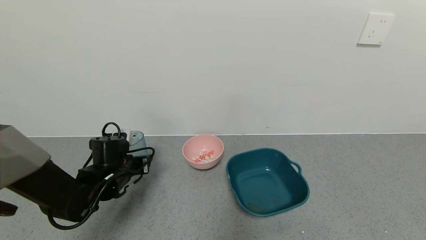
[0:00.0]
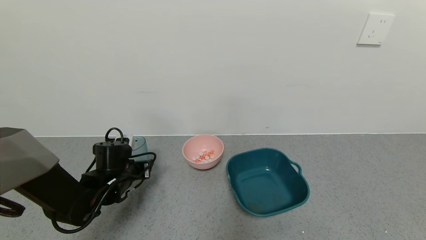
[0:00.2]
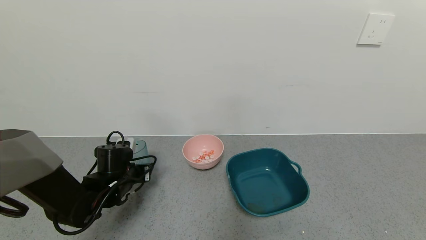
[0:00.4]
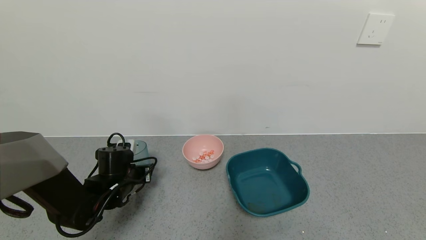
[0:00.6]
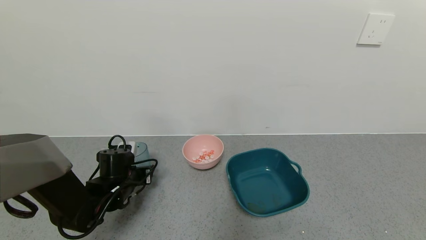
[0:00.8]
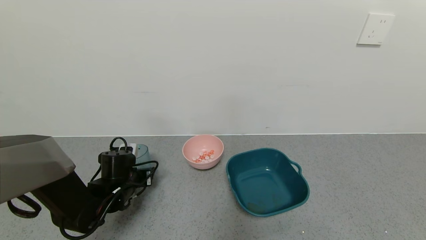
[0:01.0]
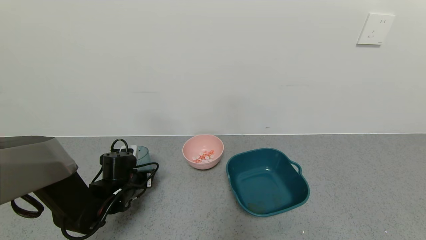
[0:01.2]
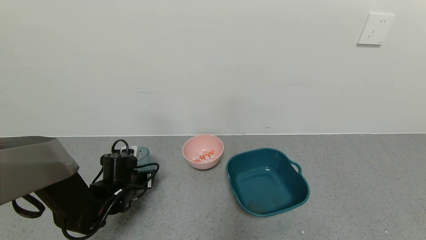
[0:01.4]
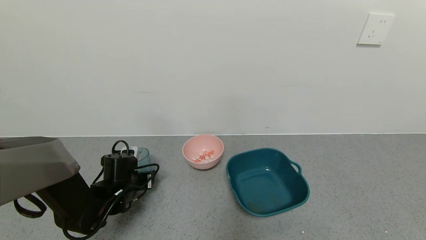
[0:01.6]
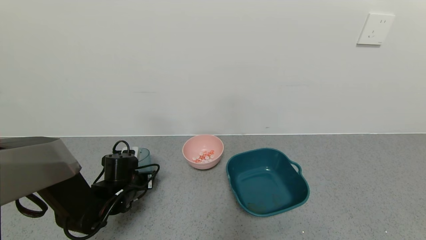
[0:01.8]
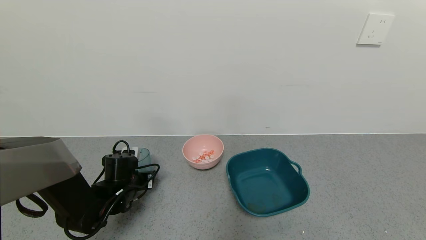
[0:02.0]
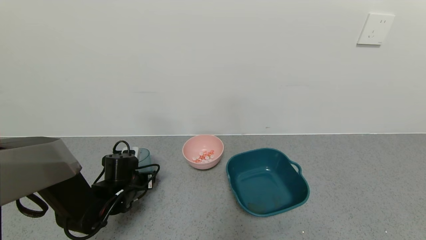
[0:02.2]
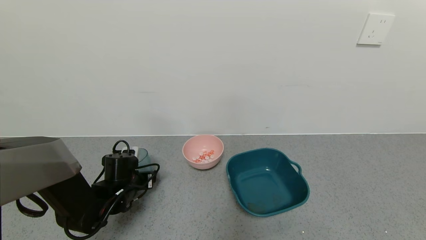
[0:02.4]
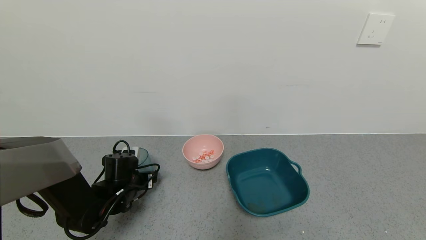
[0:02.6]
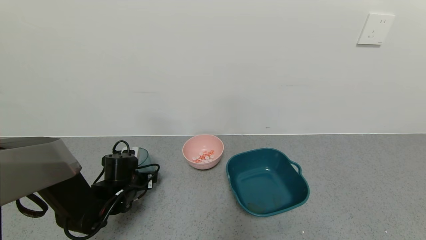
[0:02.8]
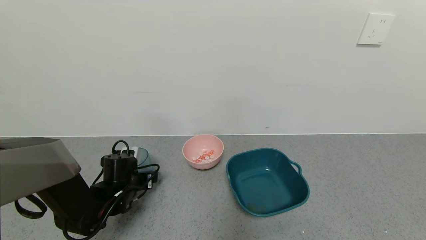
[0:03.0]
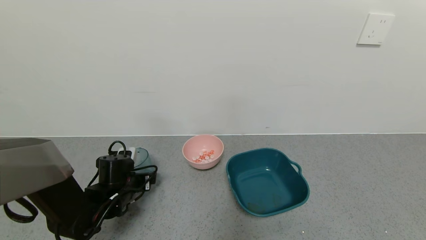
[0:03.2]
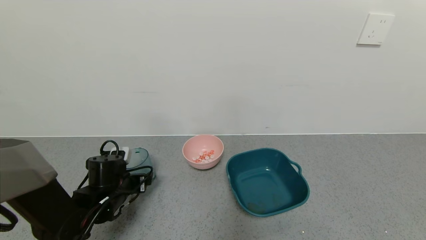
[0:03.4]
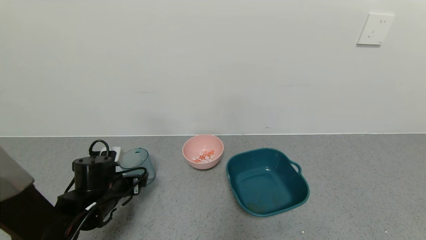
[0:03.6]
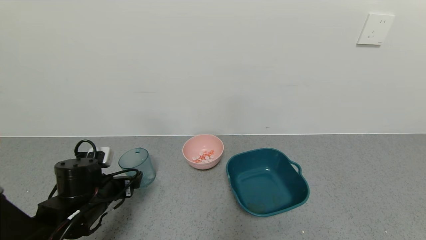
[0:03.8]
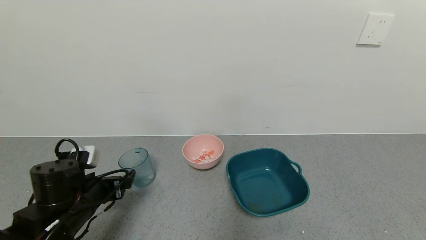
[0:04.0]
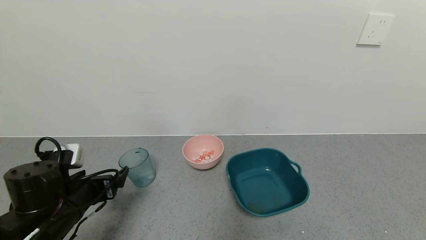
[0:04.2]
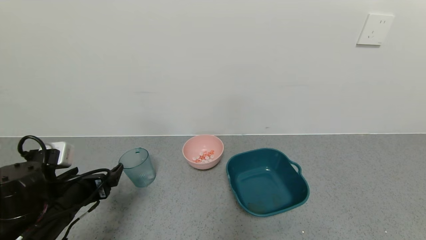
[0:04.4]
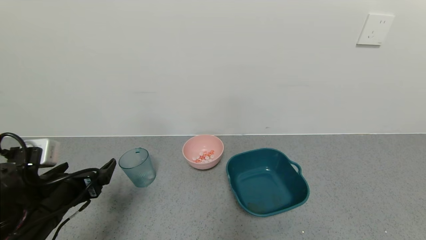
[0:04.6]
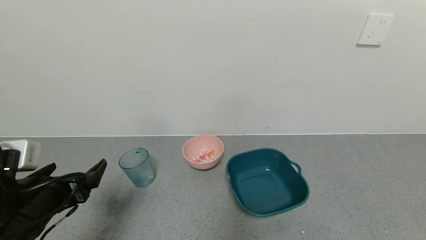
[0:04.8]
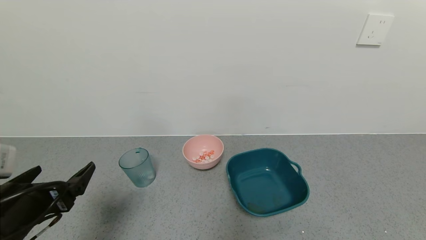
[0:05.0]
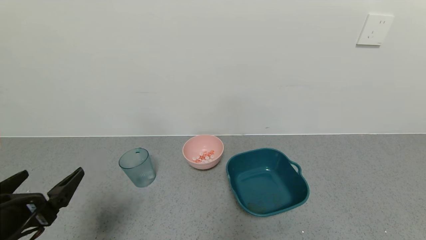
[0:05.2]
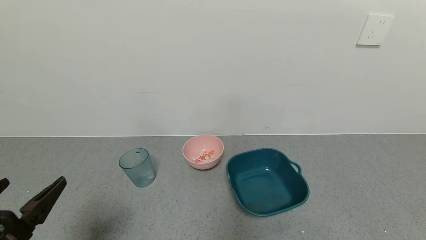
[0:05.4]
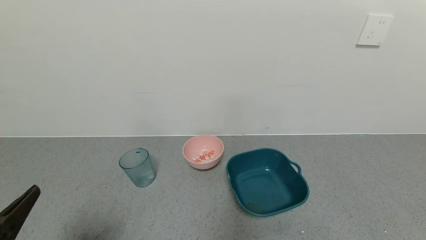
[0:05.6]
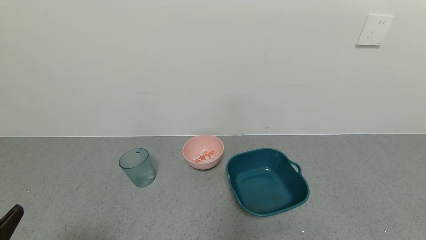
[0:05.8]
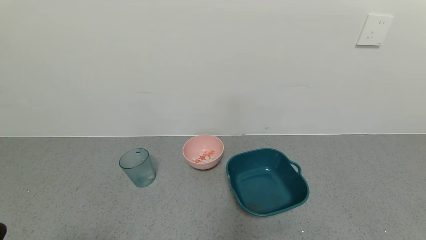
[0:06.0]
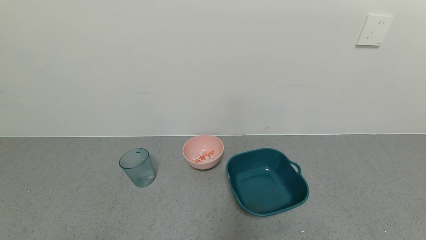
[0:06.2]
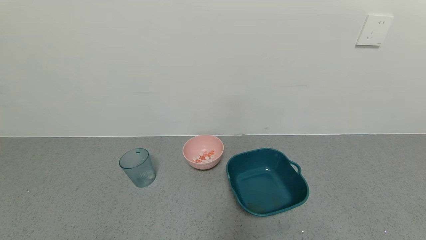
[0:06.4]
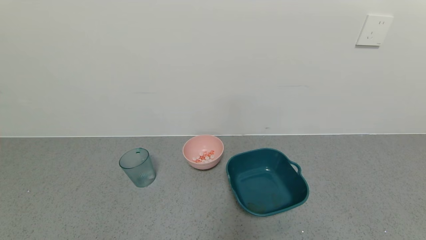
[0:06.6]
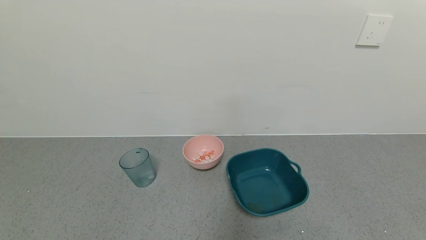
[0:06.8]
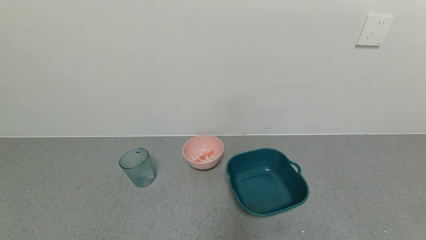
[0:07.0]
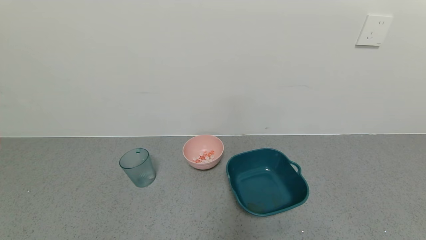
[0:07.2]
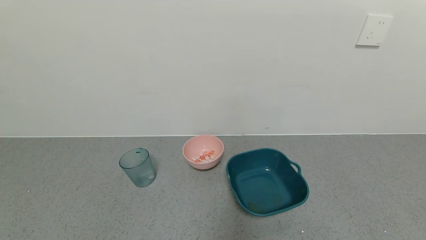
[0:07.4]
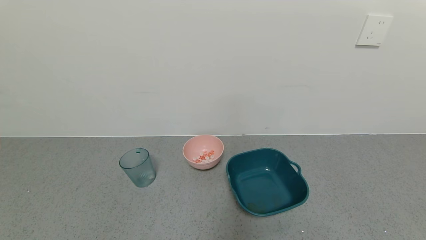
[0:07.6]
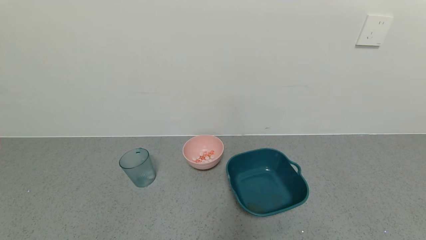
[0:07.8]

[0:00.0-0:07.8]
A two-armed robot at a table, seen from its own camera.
Task of the whole recording: use a gripper to pick up the cup and pour the solid into a bowl or tray.
Step, 0:00.0 to 0:03.4: Place the glass cup with the left gripper.
0:00.0 to 0:01.6: There are only small adjustments of the grippers.
0:01.6 to 0:03.2: The left gripper opens up.
0:03.2 to 0:04.6: The left gripper moves backward and upward, roughly 15 cm.
0:04.6 to 0:06.2: The left gripper goes about 20 cm backward.

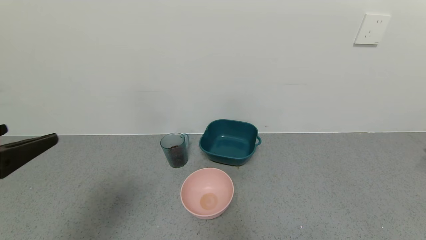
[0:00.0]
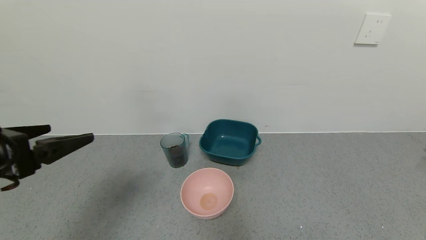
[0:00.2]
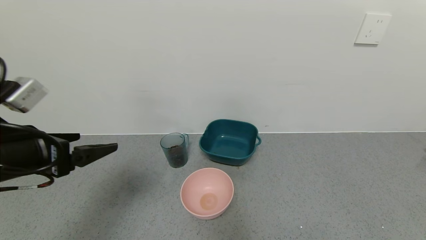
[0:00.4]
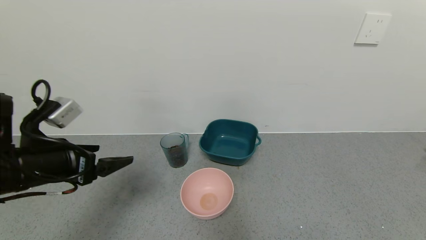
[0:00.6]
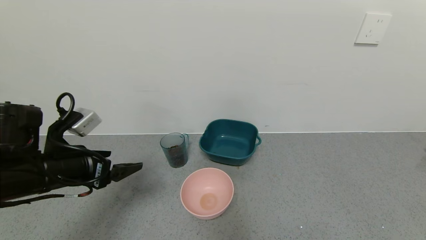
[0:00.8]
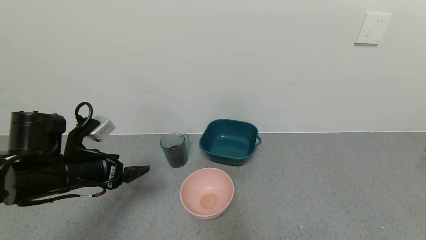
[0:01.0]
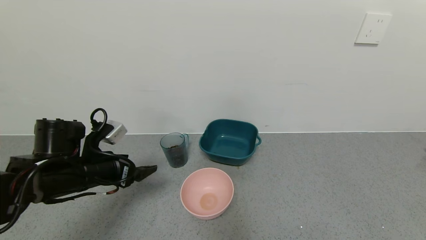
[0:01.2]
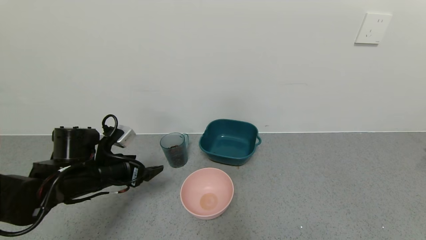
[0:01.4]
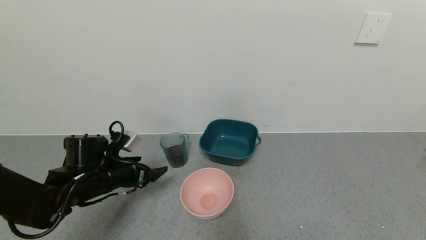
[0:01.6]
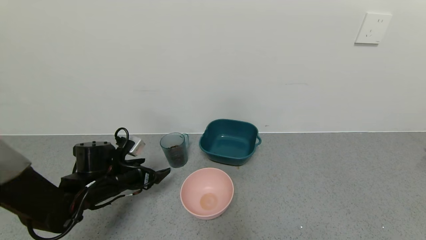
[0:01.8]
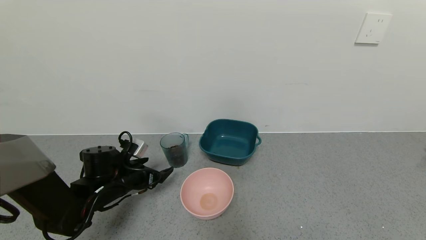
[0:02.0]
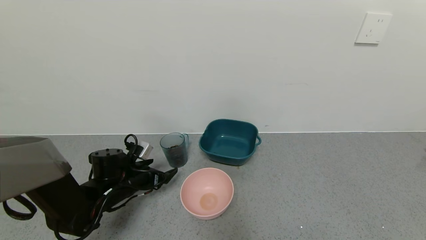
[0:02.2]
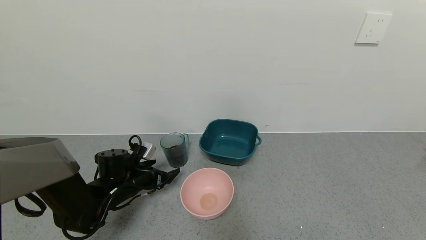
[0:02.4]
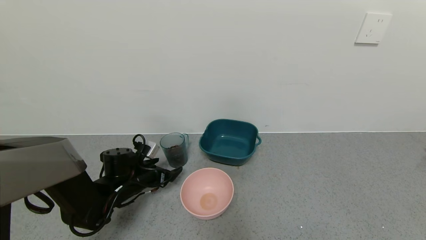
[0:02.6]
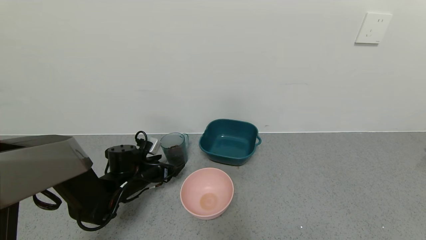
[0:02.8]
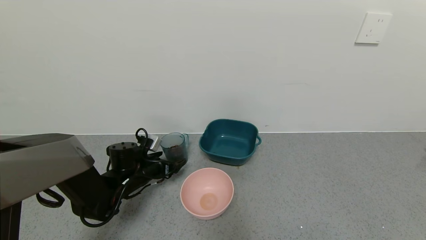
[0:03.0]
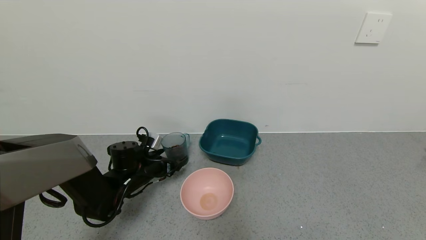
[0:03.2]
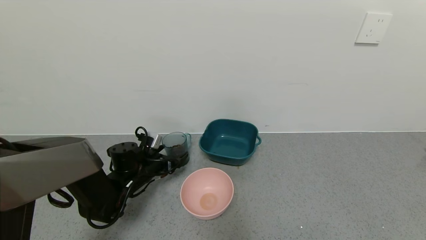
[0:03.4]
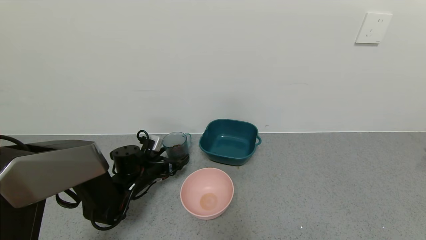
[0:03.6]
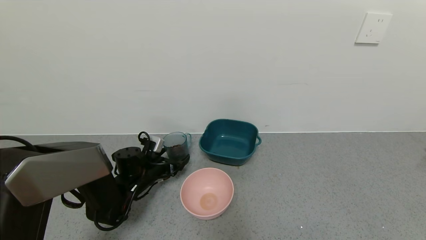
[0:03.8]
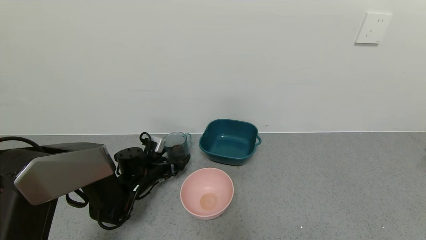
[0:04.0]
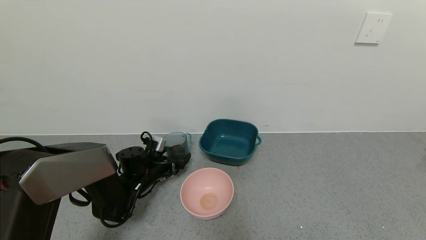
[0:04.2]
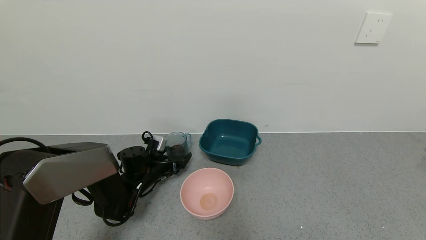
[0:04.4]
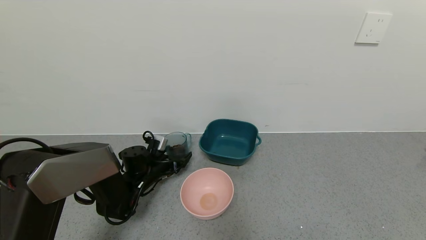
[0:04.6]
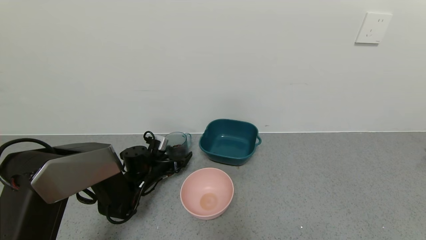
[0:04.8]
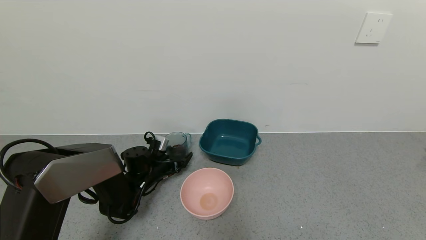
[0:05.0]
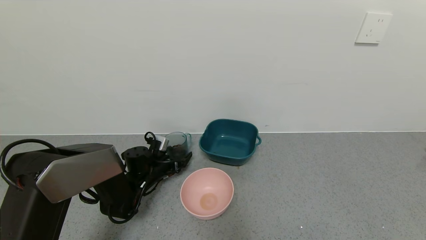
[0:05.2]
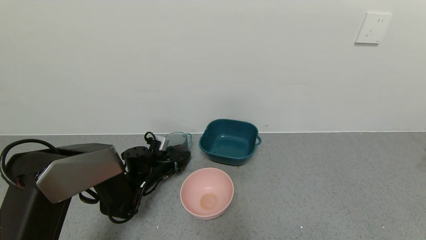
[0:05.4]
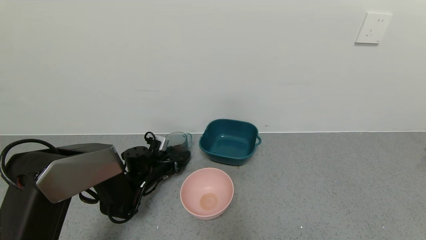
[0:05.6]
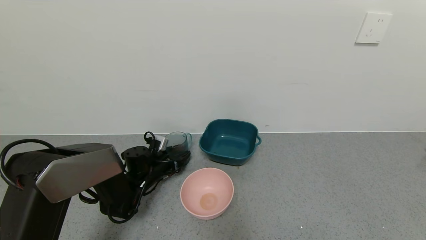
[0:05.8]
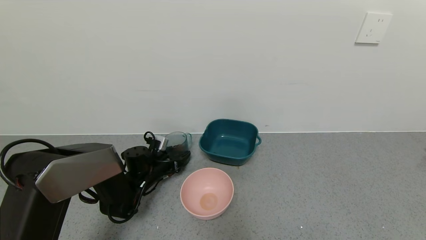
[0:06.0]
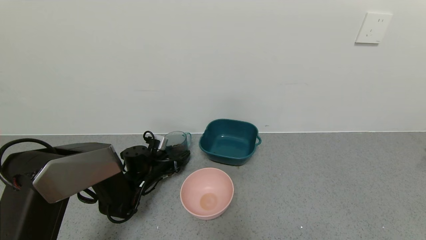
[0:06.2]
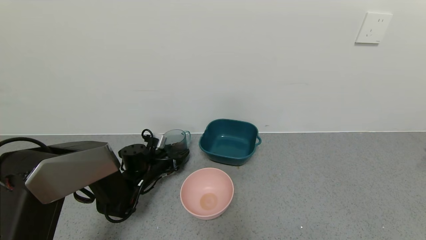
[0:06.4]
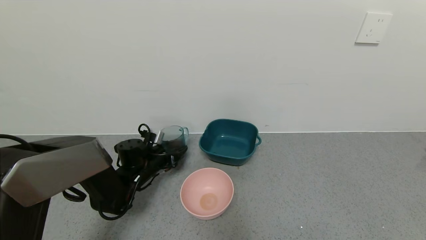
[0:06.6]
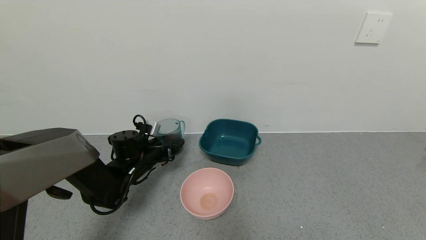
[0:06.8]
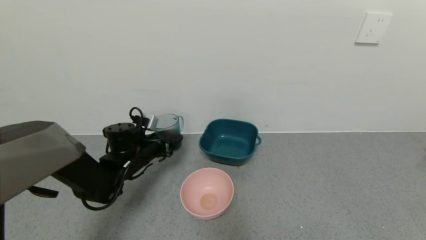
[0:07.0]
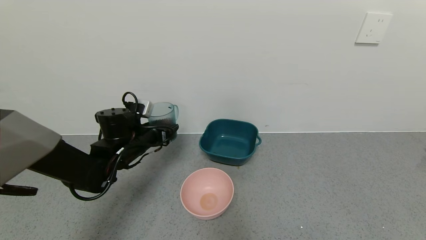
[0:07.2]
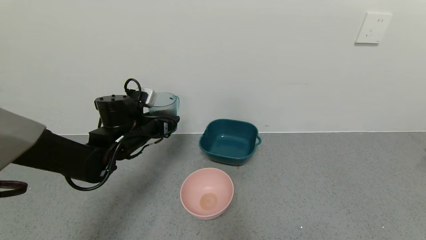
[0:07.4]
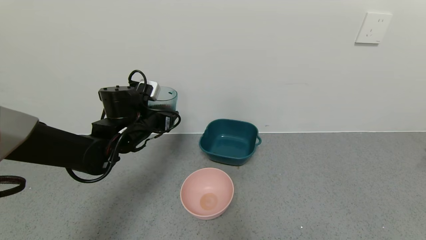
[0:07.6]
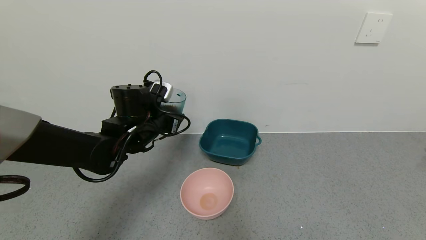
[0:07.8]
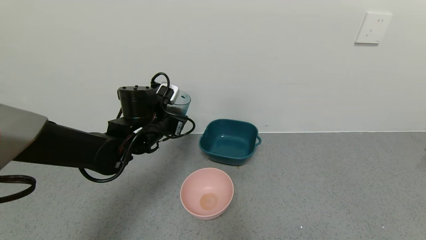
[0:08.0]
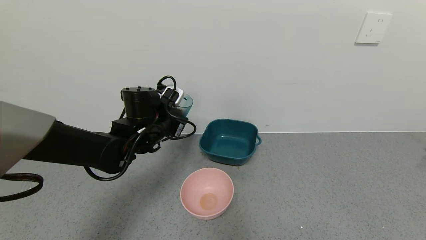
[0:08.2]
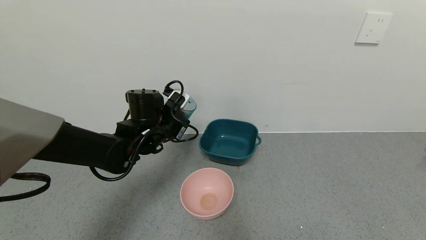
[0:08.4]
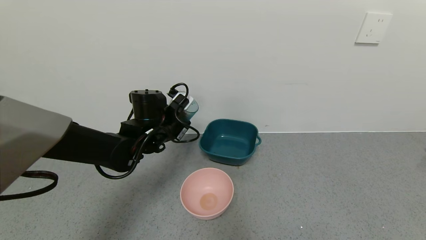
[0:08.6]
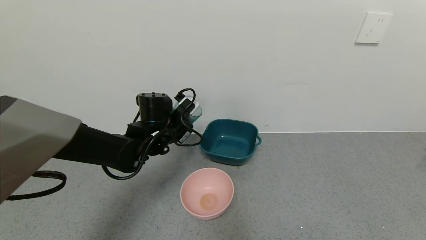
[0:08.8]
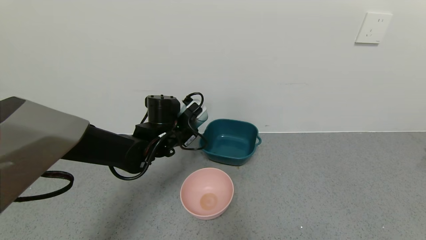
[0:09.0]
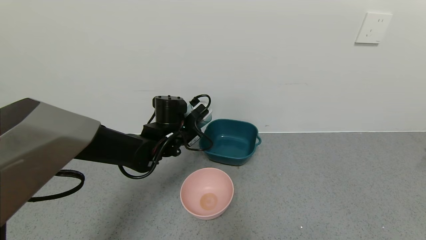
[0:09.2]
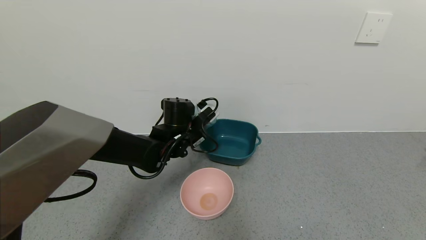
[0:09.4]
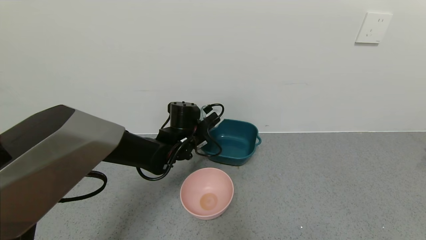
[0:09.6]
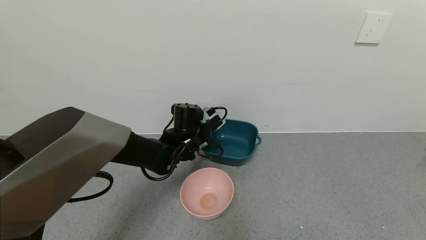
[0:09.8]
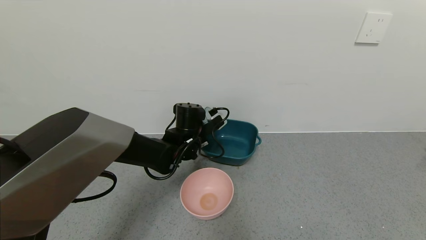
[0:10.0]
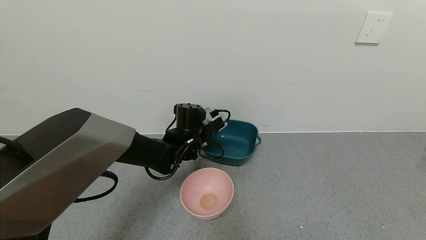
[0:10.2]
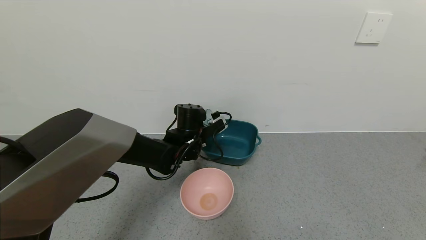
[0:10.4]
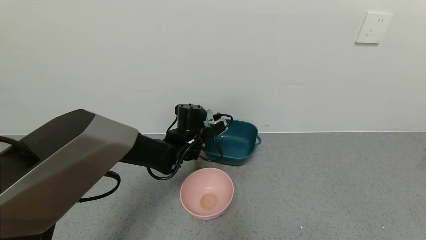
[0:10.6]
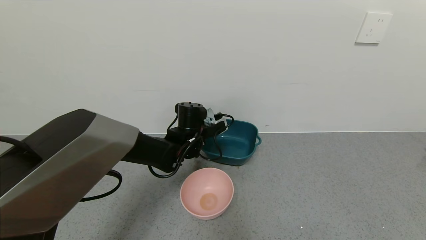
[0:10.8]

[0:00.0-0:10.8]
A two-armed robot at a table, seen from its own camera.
Task of the whole recording: use a gripper to pick up the cup and pour the solid into a bowl or tray.
Step, 0:00.0 to 0:06.4: Grasp the glass of coffee beans with the left gripper.
0:00.0 to 0:01.6: The left gripper heads forward and downward, covering about 25 cm.
0:01.6 to 0:03.0: The left gripper moves forward and downward, roughly 10 cm.
0:03.0 to 0:04.6: The grippers move only a little.
0:04.6 to 0:06.2: The left gripper closes.
0:06.2 to 0:07.8: The left gripper heads upward, covering some 15 cm.
0:07.8 to 0:09.2: The left gripper goes roughly 5 cm to the right.
